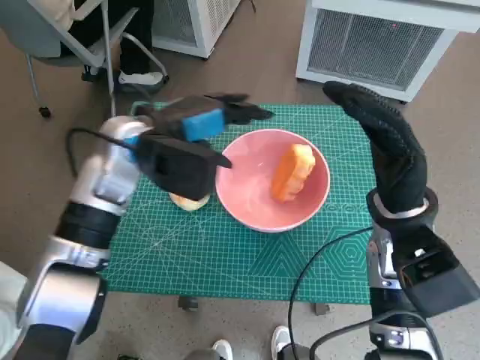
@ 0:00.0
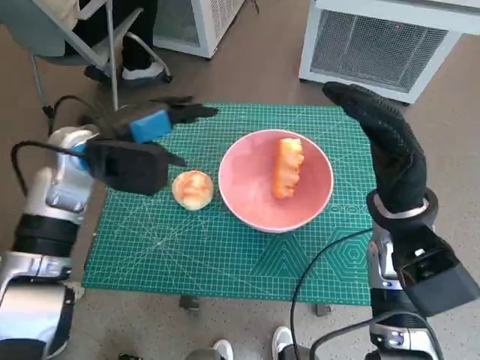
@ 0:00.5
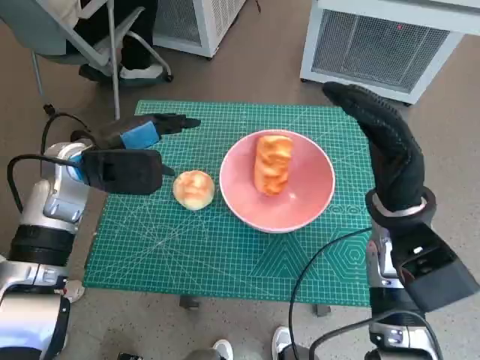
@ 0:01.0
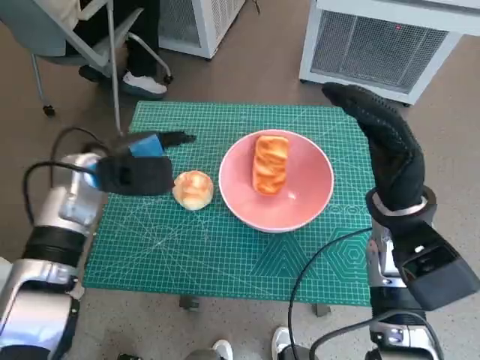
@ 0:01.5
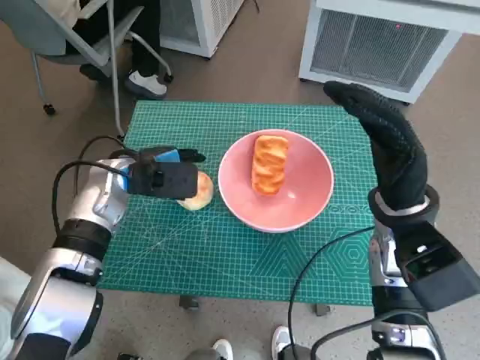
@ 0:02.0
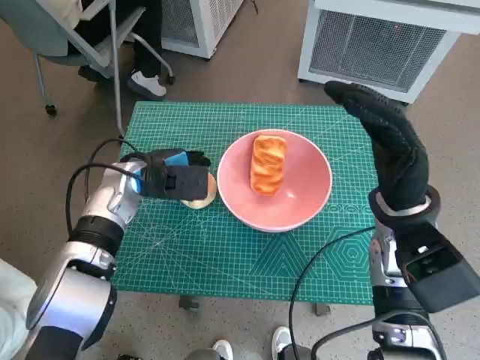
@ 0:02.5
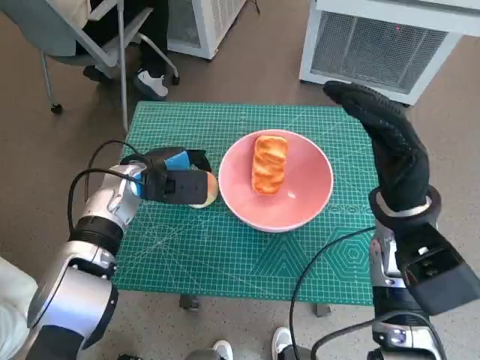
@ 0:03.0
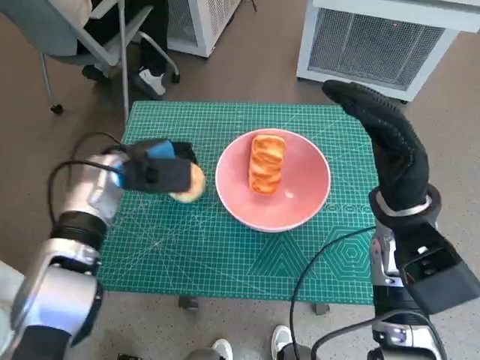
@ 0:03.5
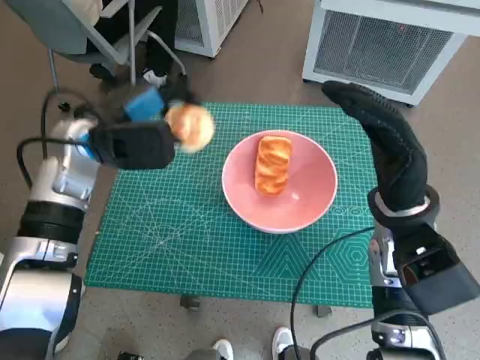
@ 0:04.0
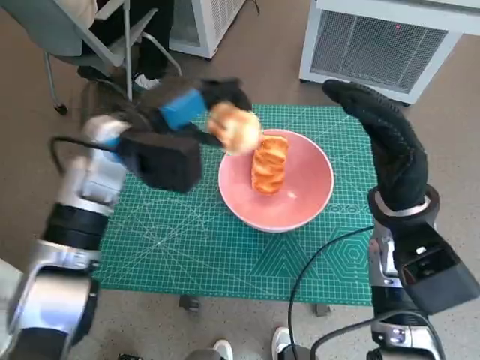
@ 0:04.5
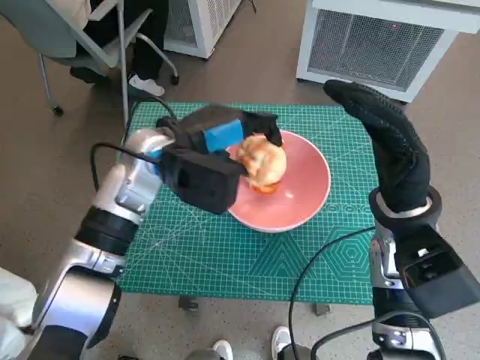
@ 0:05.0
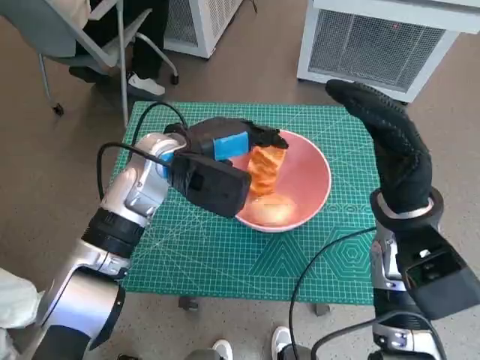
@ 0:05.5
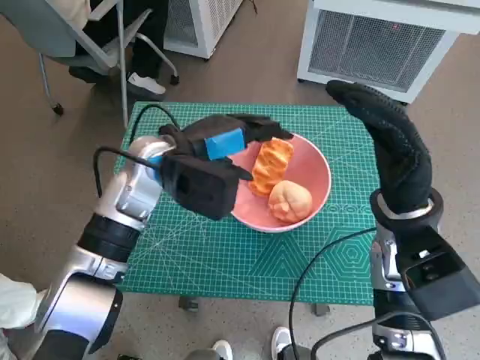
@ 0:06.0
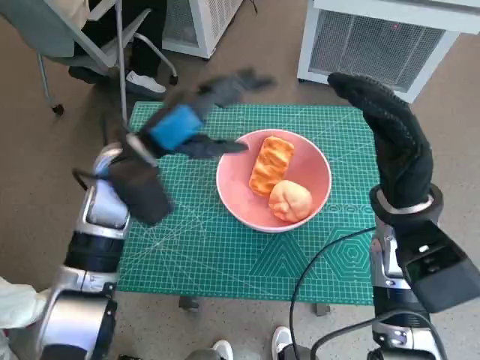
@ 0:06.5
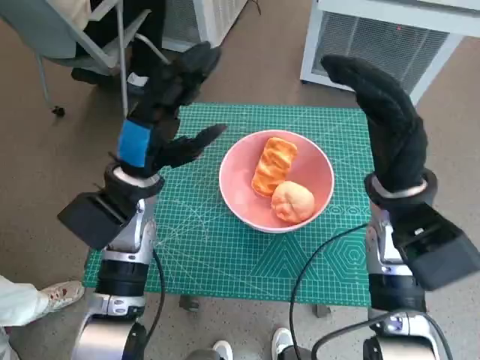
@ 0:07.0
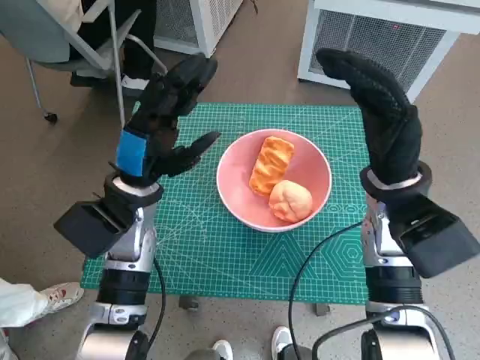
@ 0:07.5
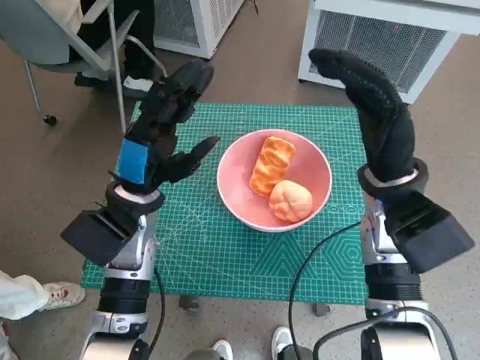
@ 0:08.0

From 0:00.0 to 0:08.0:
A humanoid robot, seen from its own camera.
Task of the whole recording: Push the bowl to the center of the table and put the bread into the bowl.
Step, from 0:00.0 to 0:02.5: Grasp the round bread with left hand.
Step, from 0:03.0 to 0:05.5: Place the round bread in pink bowl with left hand.
From 0:00.0 to 0:02.0: The left hand shifts roughly 10 cm downward and to the left.
From 0:02.0 to 0:04.0: The left hand goes some 5 cm upward.
From 0:04.0 to 0:06.0: The left hand goes some 10 cm to the right.
From 0:06.0 to 0:08.0: The left hand heads downward, covering about 5 cm.
